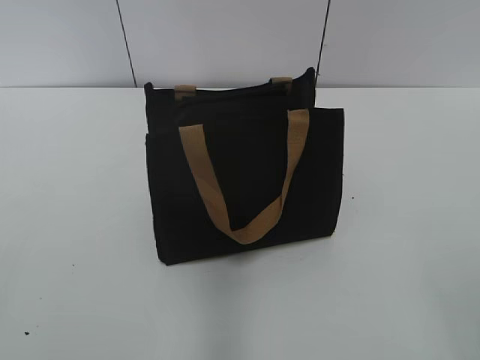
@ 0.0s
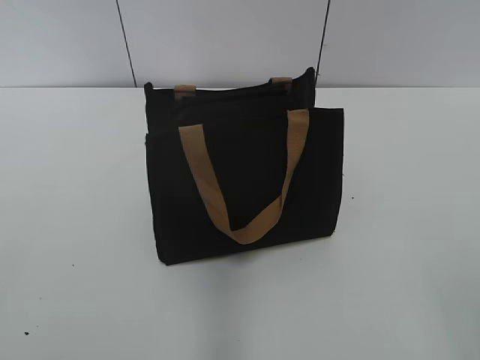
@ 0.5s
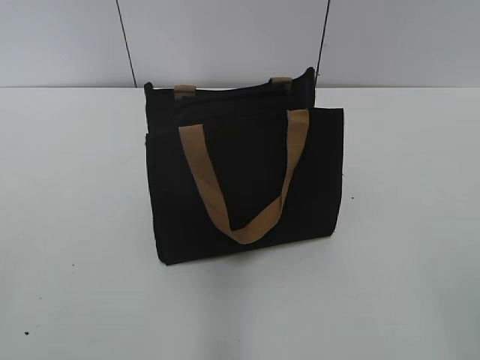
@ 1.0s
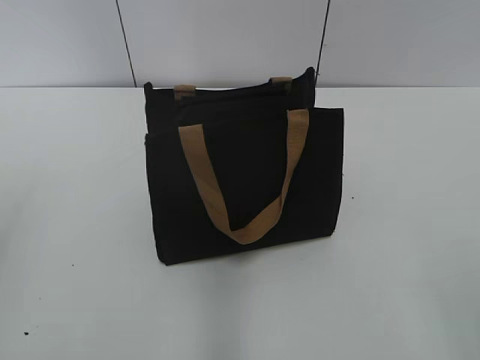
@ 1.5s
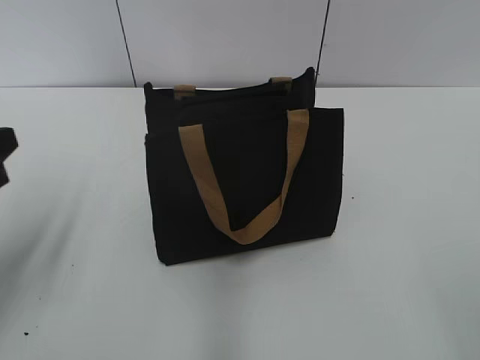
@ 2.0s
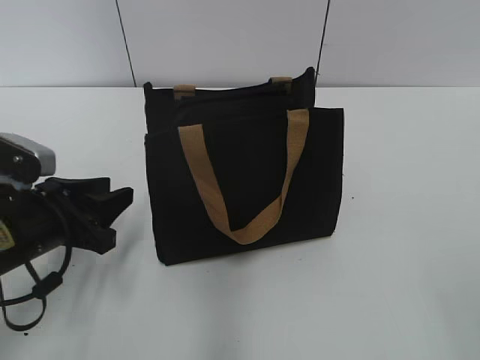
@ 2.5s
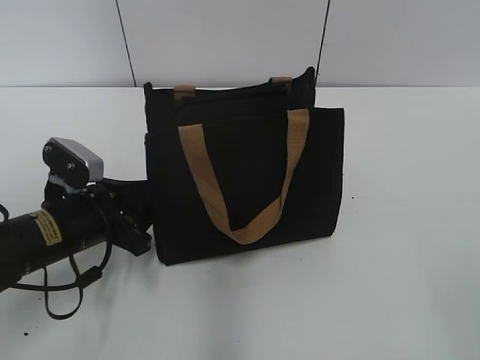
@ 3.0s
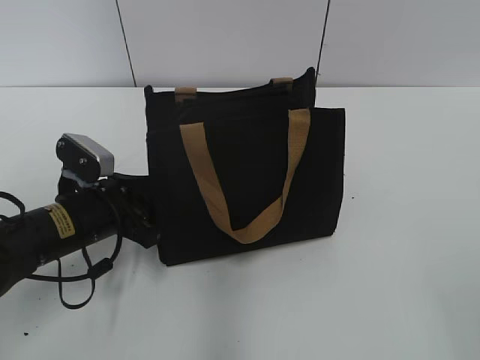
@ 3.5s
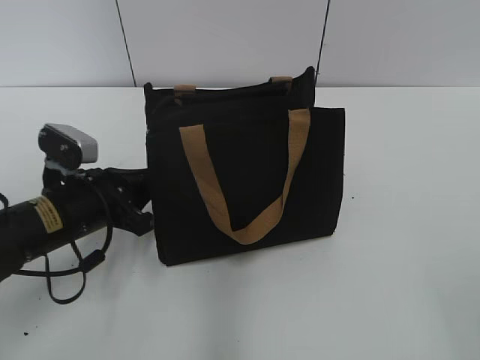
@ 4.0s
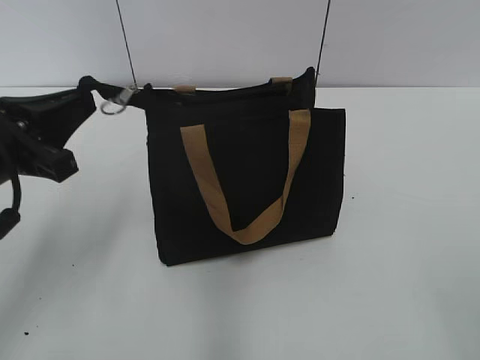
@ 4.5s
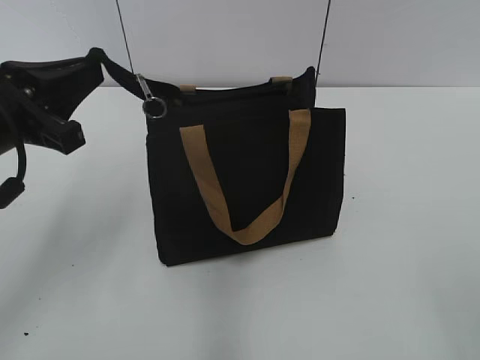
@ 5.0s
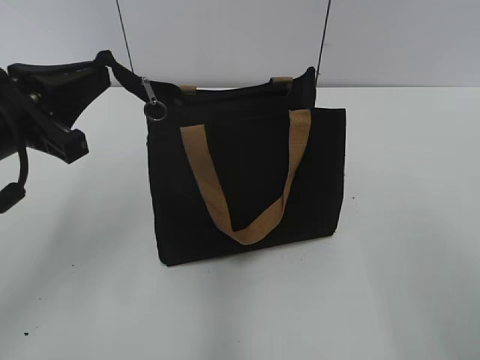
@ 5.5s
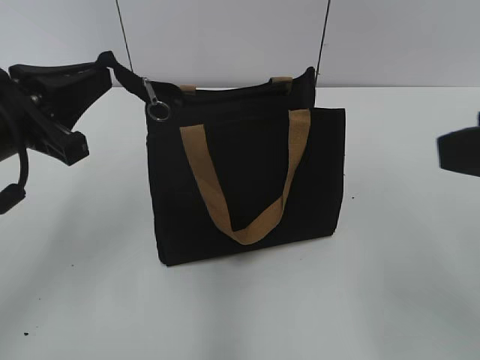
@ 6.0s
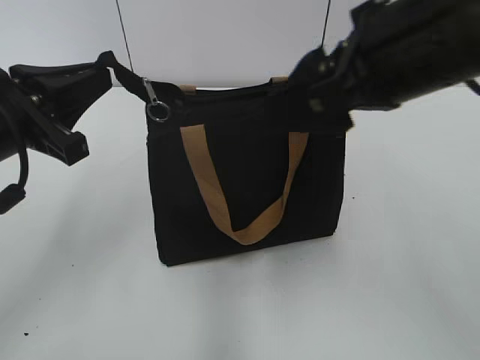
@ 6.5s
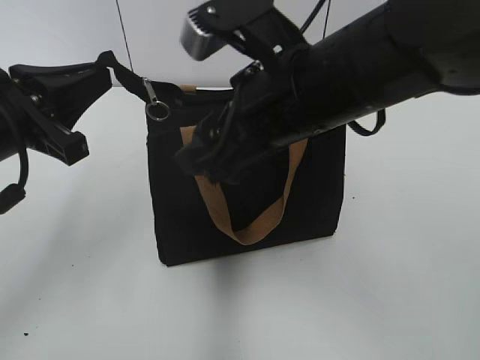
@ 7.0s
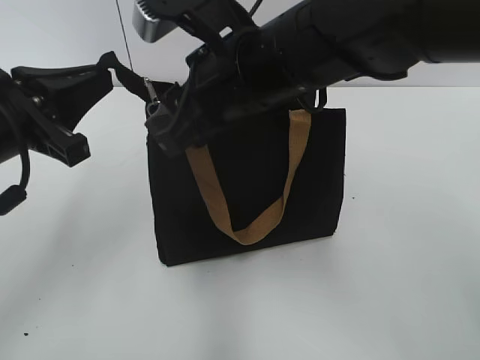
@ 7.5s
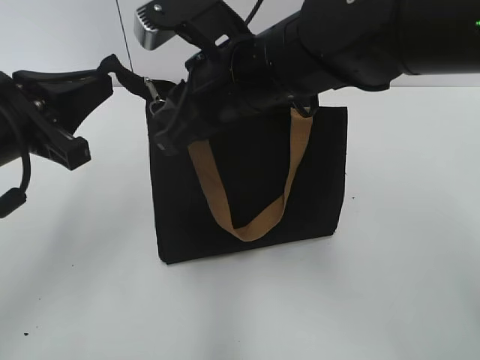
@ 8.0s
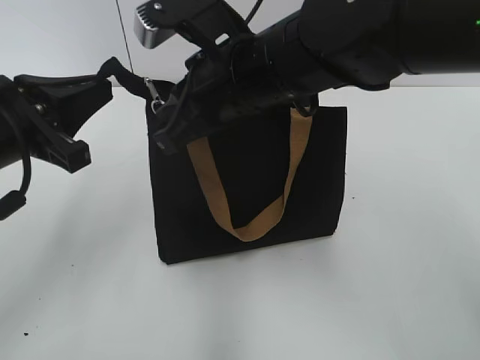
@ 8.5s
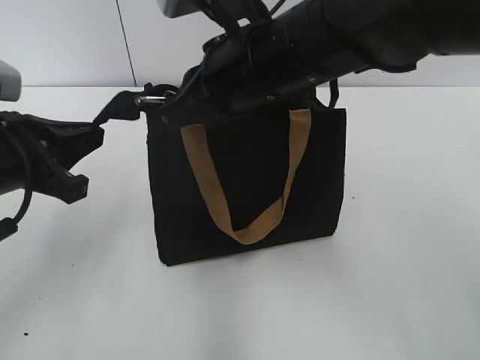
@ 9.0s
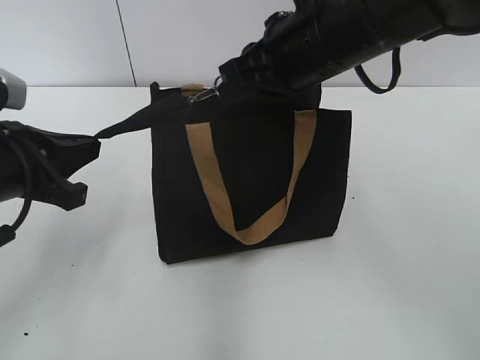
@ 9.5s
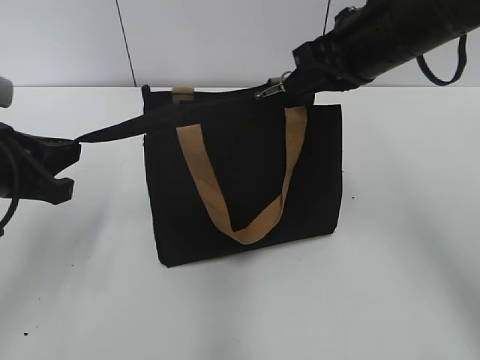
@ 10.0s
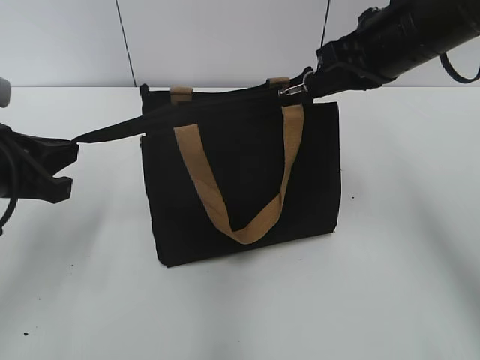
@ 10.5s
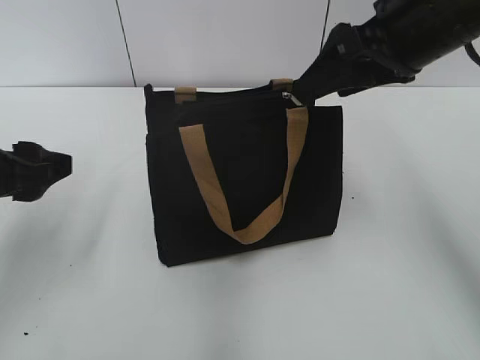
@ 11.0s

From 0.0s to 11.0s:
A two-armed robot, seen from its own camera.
Step, from 0.0s to 10.5s: Zip up the bag with your right hand.
From 2.0s to 3.5s: The left gripper goes some 20 cm downward, to the right and forward.
From 3.5s to 5.5s: The left gripper goes approximately 15 cm upward, and closes.
From 5.5s to 7.5s: The right gripper is displaced forward and to the left by about 35 cm.
From 7.5s to 9.0s: The right gripper closes its fingers.
From 9.0s to 11.0s: The left gripper opens up; the right gripper is displaced to the right by about 15 cm, and opens its fingers.

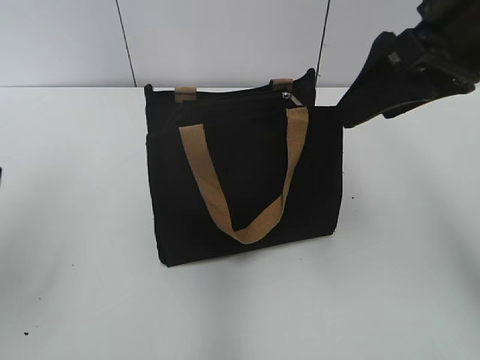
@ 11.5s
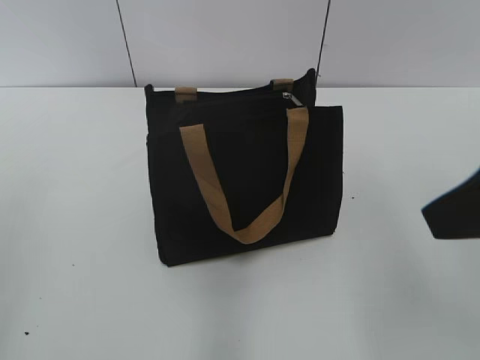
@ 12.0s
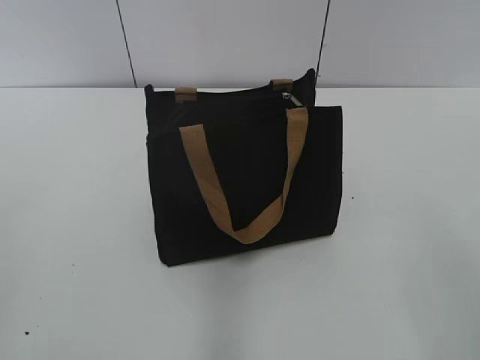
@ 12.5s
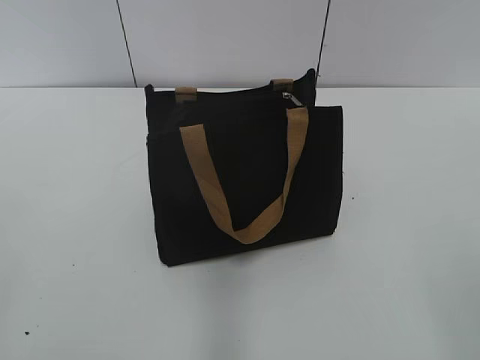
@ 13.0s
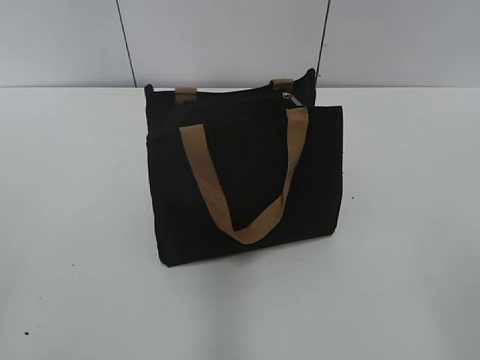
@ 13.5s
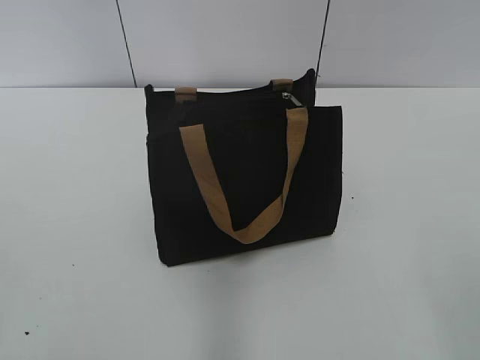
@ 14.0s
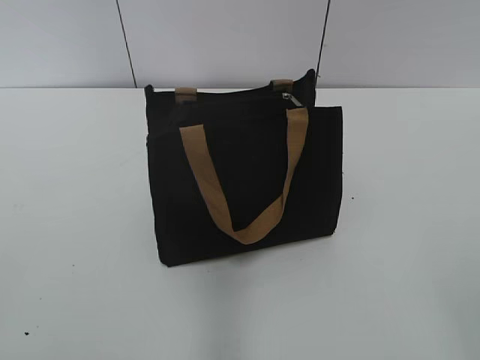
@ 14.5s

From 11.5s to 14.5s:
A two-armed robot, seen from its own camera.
From 11.5s to 13.0s: The left gripper is displaced backward by some 20 cm, while the right gripper goes some 25 cm backward.

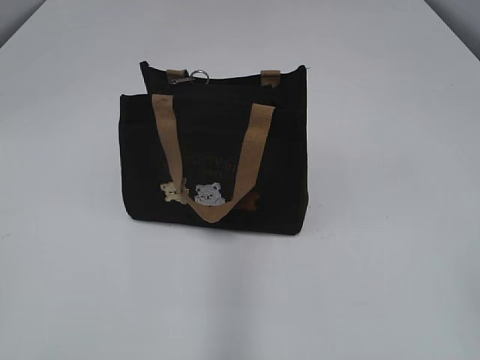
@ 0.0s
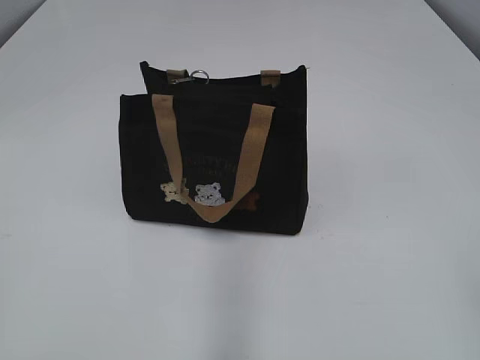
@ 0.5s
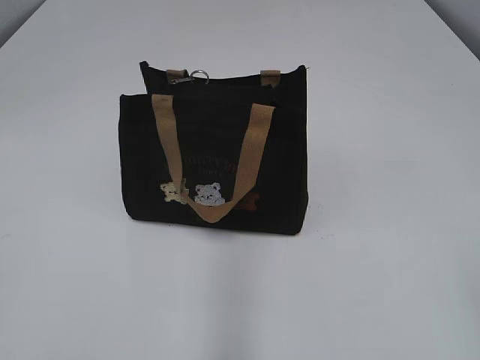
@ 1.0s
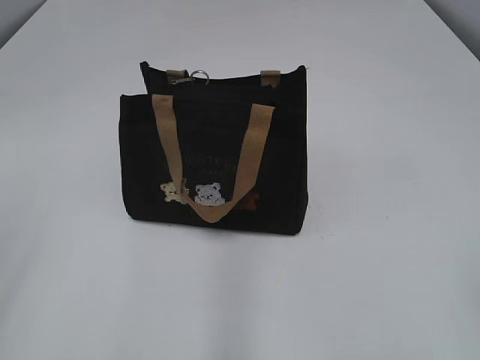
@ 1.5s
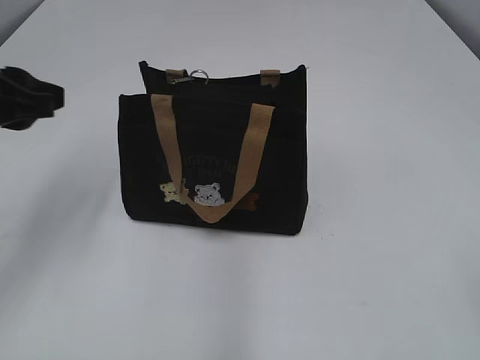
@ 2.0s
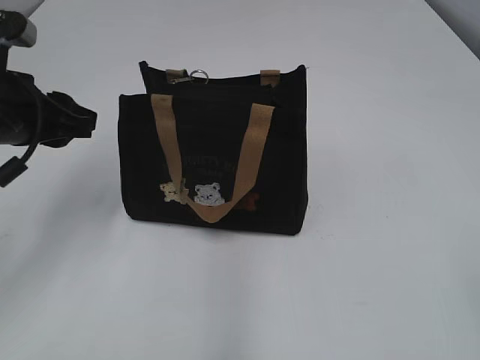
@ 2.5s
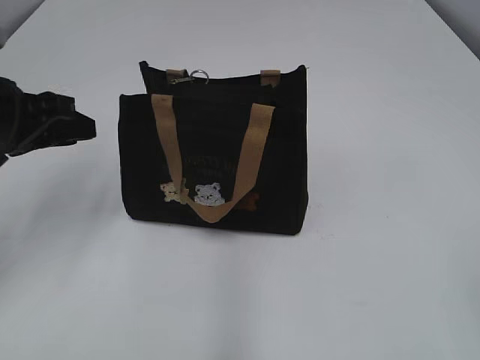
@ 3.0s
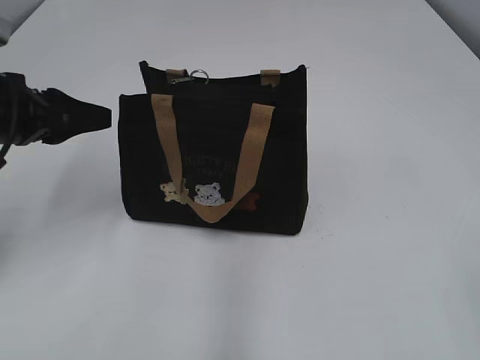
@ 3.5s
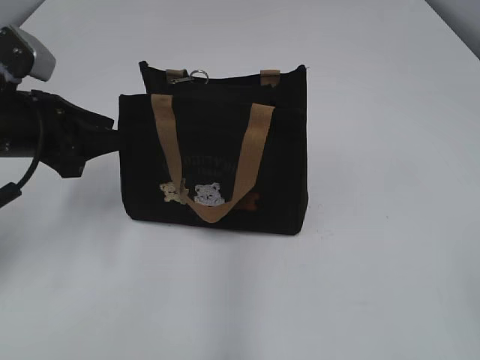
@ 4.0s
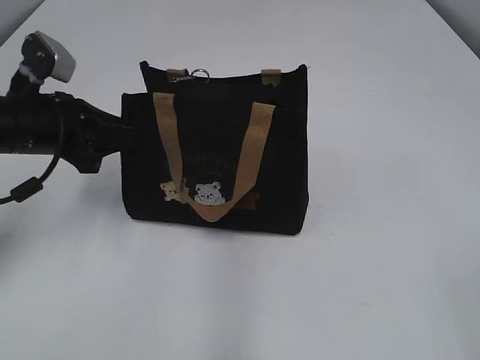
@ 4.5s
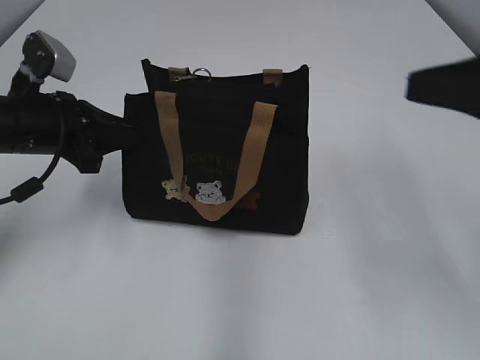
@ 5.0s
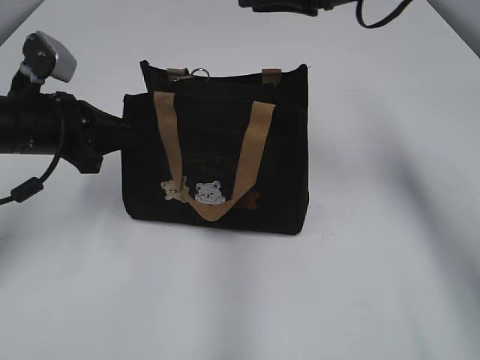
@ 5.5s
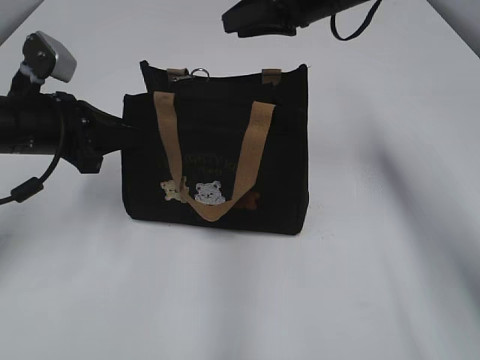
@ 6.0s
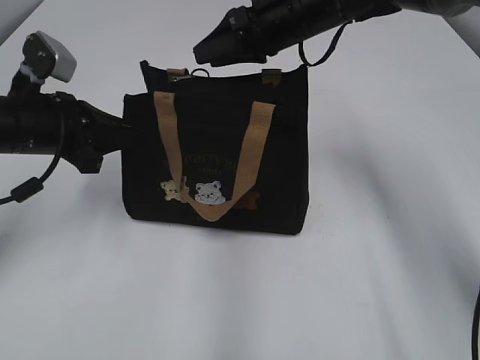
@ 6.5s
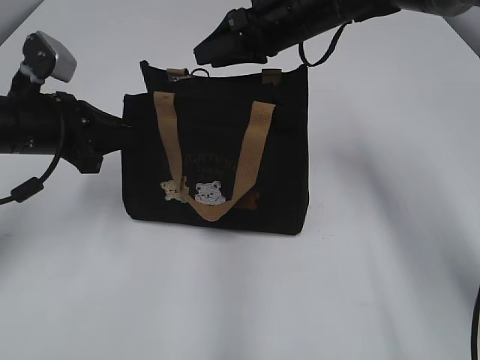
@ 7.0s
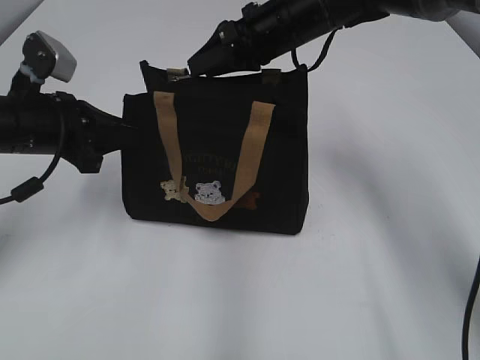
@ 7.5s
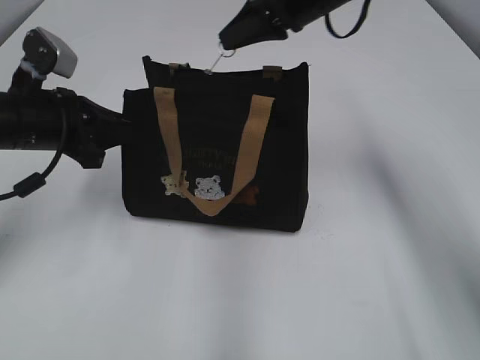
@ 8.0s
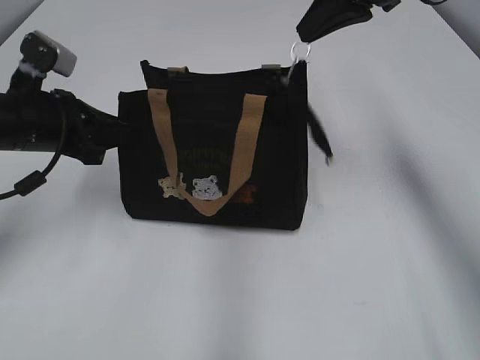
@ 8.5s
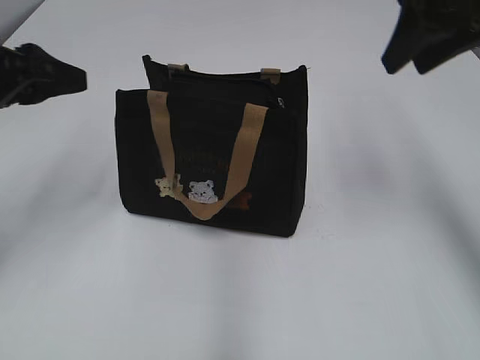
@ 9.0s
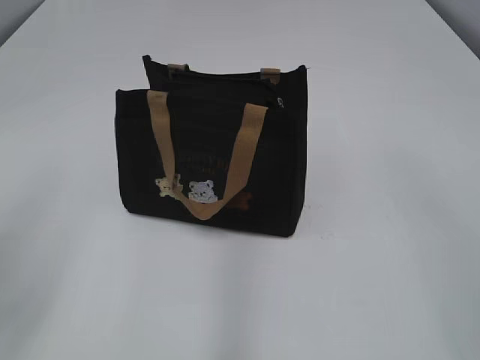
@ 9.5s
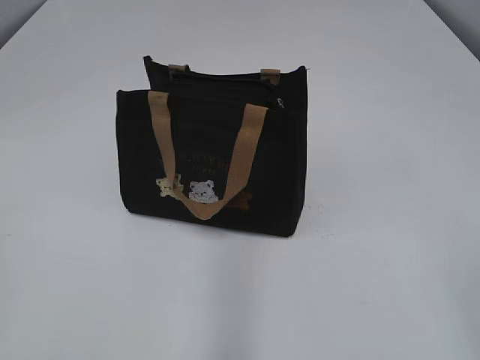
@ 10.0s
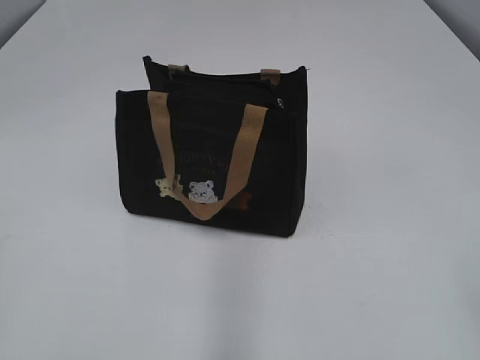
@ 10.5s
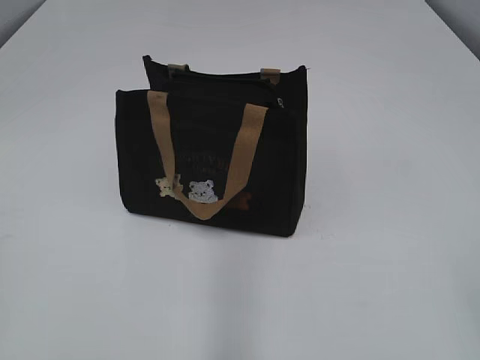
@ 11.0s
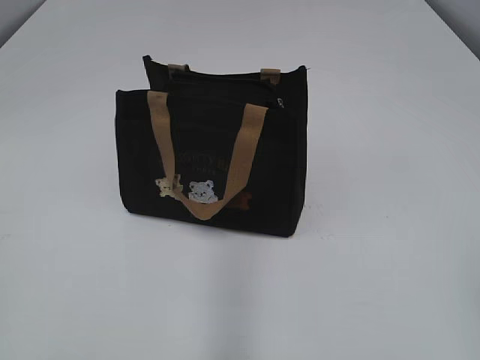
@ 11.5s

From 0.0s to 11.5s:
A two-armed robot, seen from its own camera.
Step, from 0.0s to 8.5s: Pull open the zipper with your right hand.
From 2.0s to 4.0s: The left gripper goes roughly 10 cm downward and forward.
From 4.0s to 6.0s: The right gripper travels forward by roughly 50 cm. Meanwhile the left gripper closes.
From 6.0s to 7.5s: The right gripper shifts about 5 cm to the left.
From 7.5s to 9.5s: The left gripper heads backward and upward, covering roughly 20 cm, and opens, while the right gripper is displaced backward and to the right by about 40 cm, and closes, then reopens.
From 9.5s to 11.5s: The left gripper shifts some 15 cm backward.
